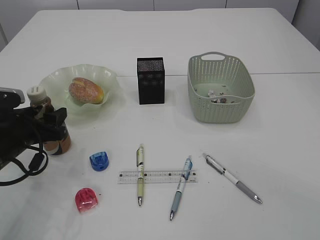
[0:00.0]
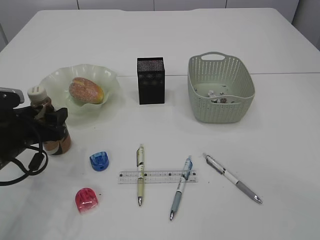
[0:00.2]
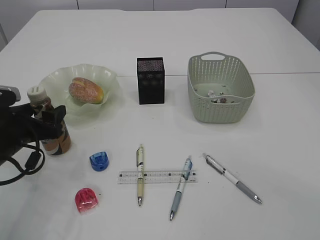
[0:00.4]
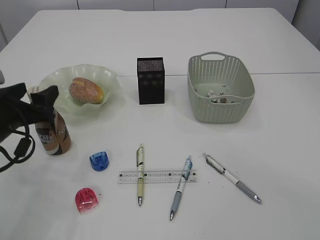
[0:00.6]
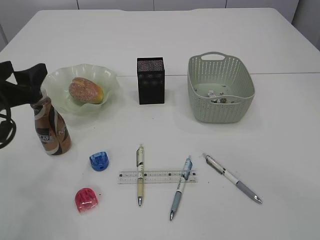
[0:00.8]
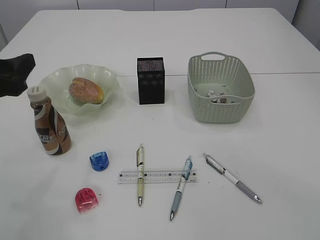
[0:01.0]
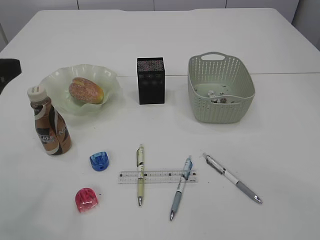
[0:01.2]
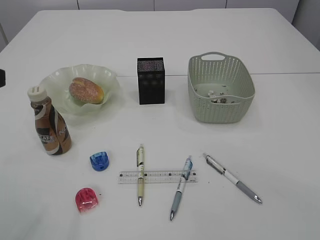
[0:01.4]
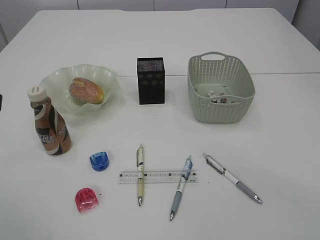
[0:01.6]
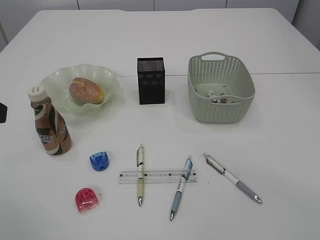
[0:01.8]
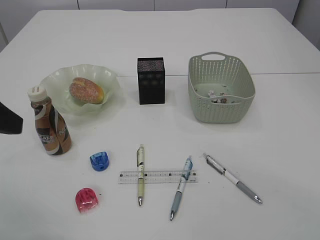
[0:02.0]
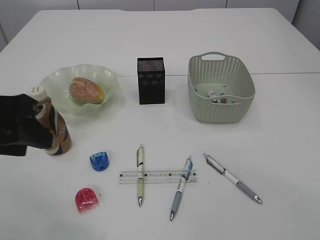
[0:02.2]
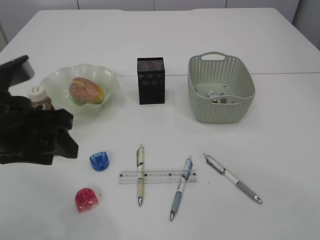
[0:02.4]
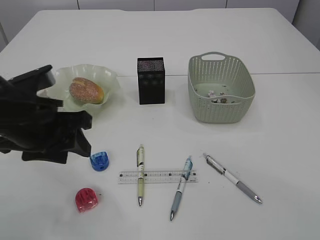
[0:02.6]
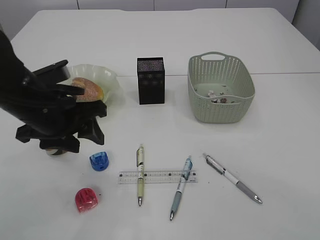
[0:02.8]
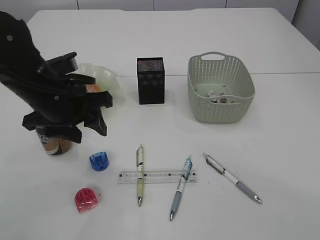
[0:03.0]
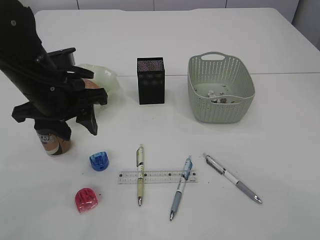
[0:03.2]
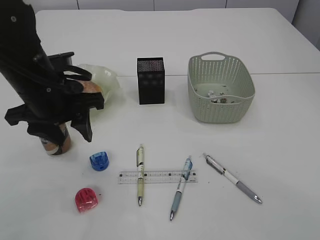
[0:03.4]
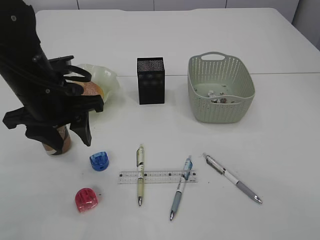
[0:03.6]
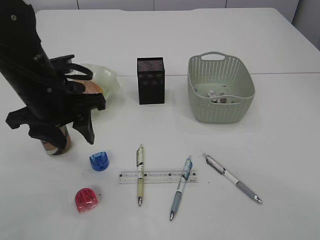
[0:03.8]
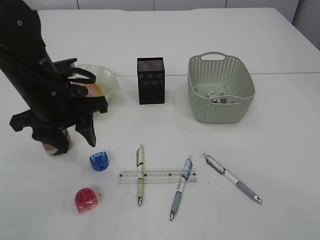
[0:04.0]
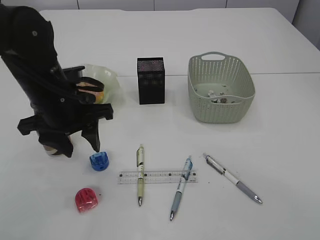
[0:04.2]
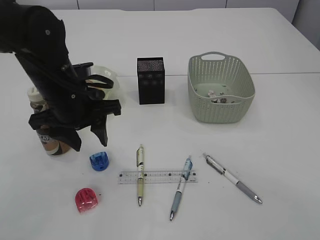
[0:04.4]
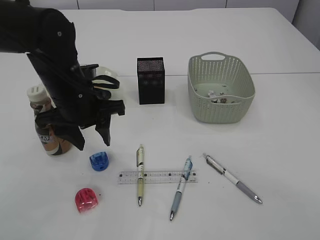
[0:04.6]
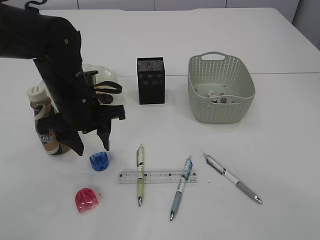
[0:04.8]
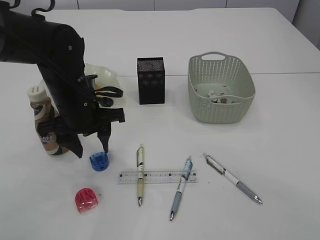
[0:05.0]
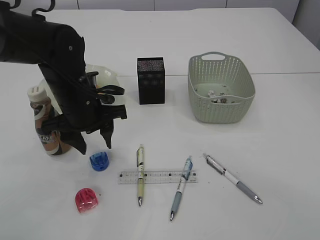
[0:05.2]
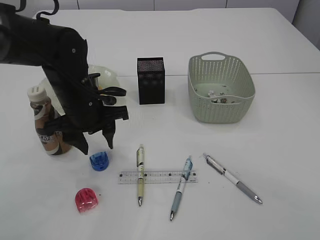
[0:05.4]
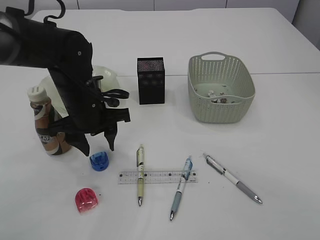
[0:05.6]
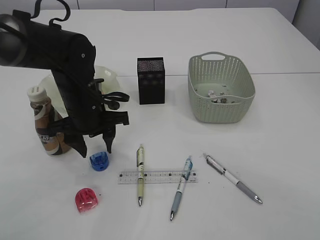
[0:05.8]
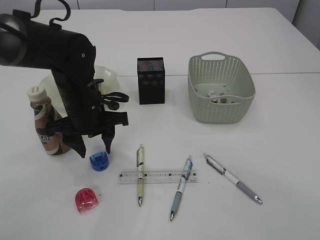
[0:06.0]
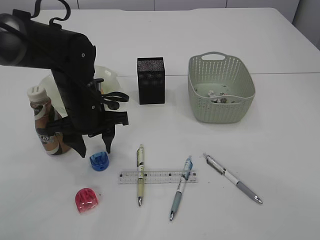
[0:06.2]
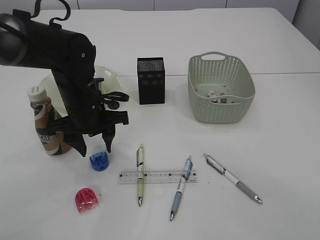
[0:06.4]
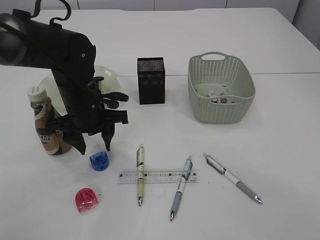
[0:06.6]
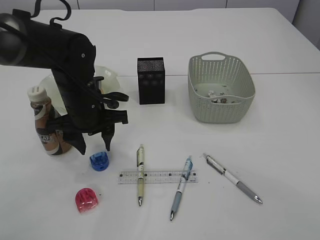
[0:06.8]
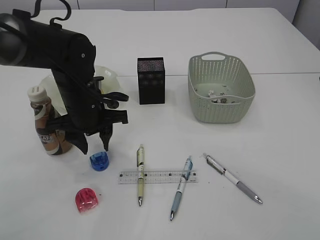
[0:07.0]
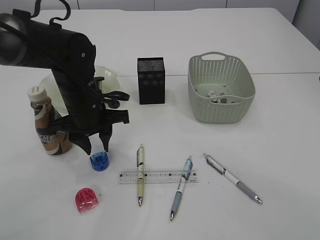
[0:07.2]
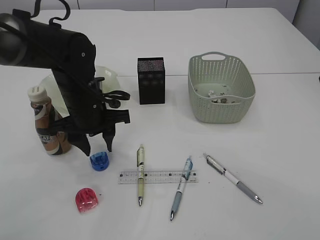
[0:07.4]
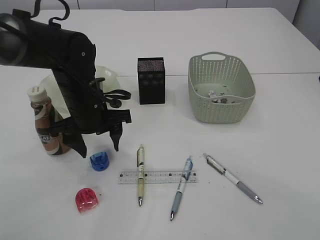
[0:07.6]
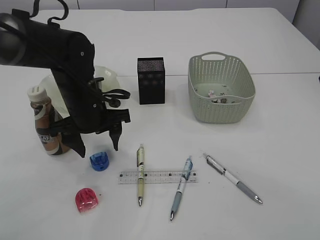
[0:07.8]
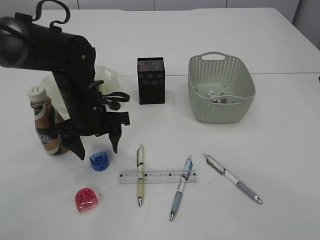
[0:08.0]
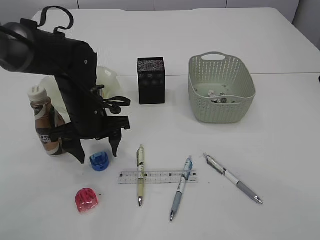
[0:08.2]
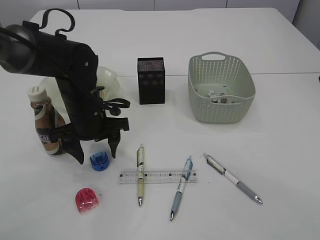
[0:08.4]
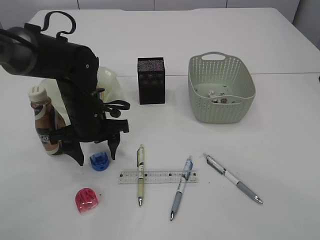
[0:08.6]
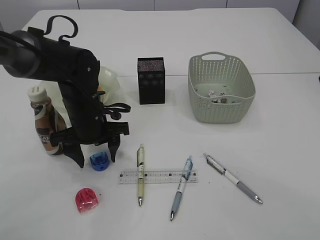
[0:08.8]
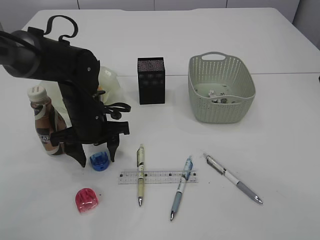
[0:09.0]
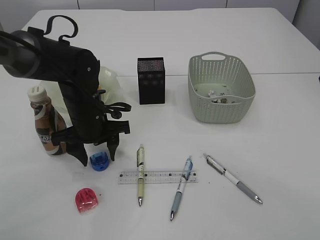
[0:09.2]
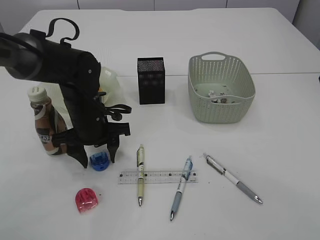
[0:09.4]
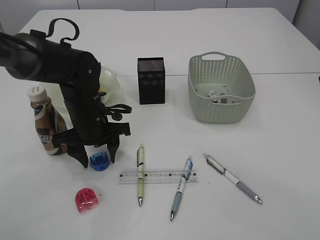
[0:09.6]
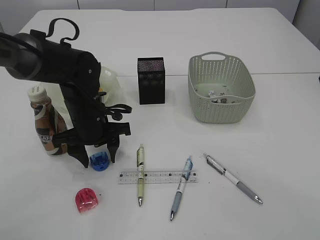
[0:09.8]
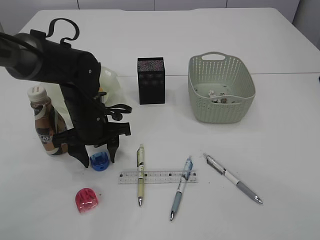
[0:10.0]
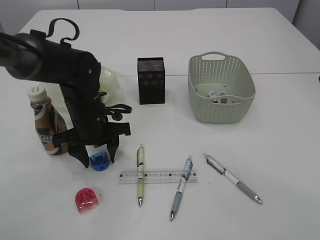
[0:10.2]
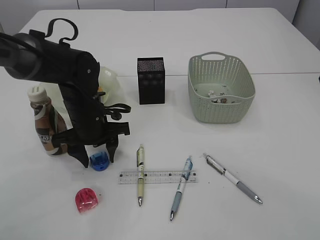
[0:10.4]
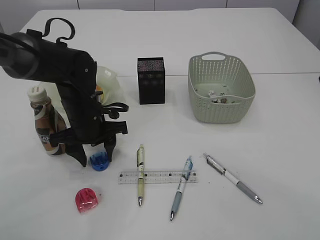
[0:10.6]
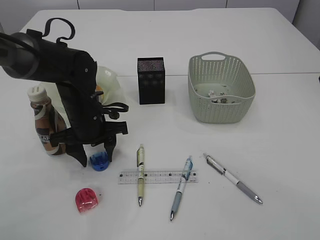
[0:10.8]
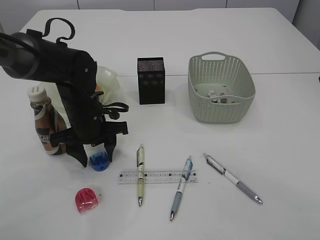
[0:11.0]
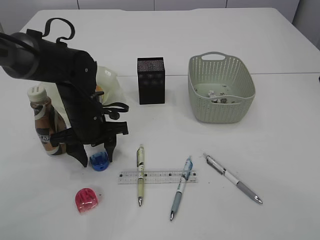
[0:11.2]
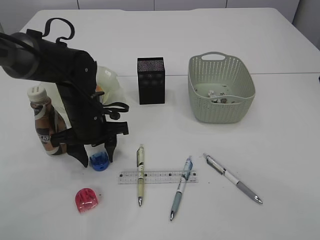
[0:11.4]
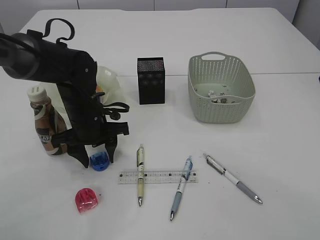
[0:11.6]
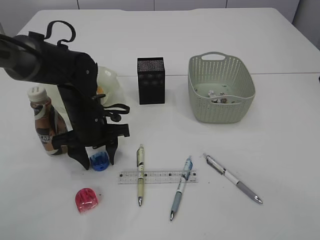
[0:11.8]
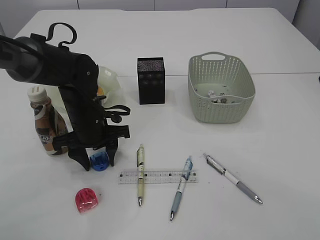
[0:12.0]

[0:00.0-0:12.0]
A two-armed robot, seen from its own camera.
0:00.0 to 0:01.6: The left gripper travels upward and backward by roughly 25 cm.
0:01.6 to 0:03.0: The left gripper is displaced forward, to the right and downward by some 20 cm.
0:03.0 to 0:04.4: The grippers stay close to where they were, moving slightly.
0:04.4 to 0:06.0: The left gripper ends up some 5 cm from where it was.
0:06.0 to 0:07.6: The left gripper closes and opens again.
0:07.6 to 0:09.0: The grippers make only small movements.
0:09.0 to 0:12.0: Both grippers stay put.

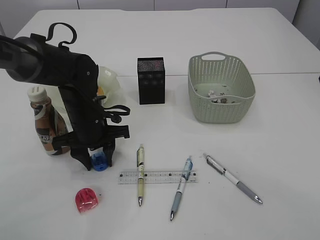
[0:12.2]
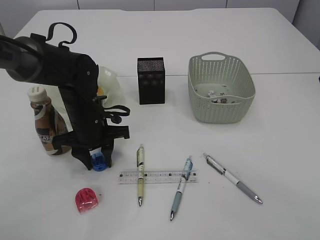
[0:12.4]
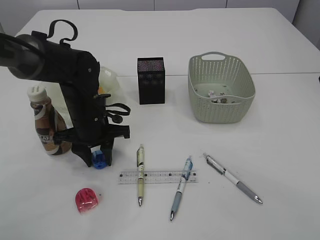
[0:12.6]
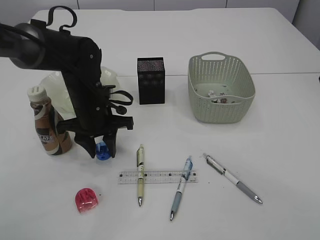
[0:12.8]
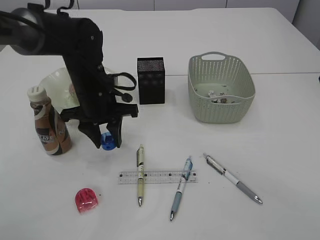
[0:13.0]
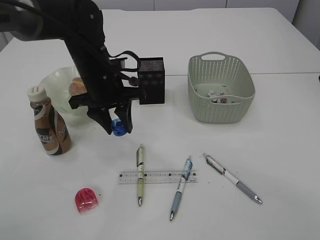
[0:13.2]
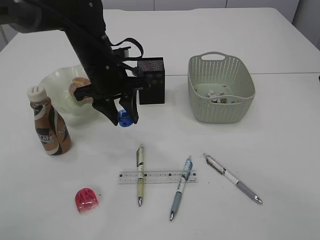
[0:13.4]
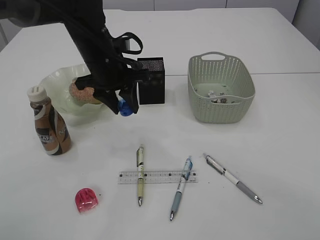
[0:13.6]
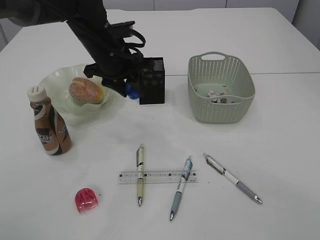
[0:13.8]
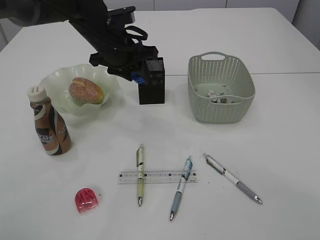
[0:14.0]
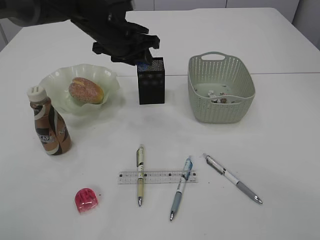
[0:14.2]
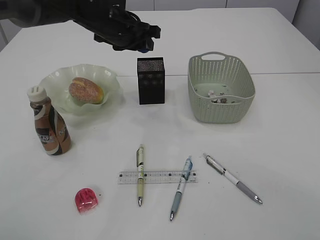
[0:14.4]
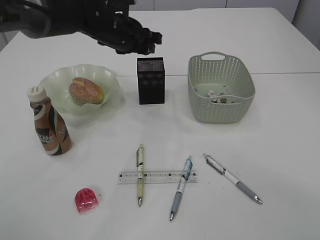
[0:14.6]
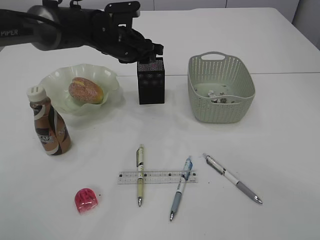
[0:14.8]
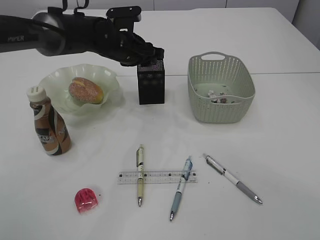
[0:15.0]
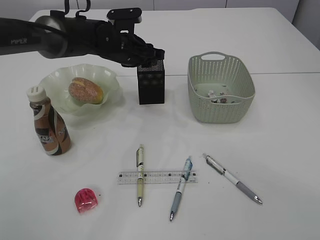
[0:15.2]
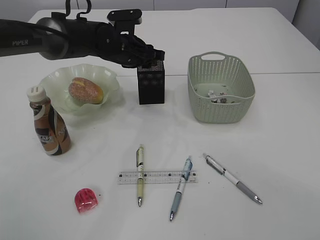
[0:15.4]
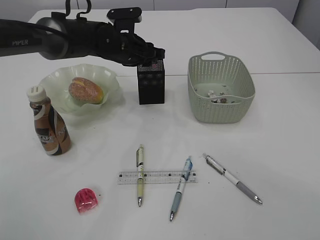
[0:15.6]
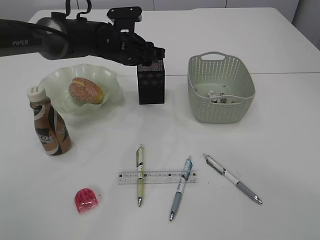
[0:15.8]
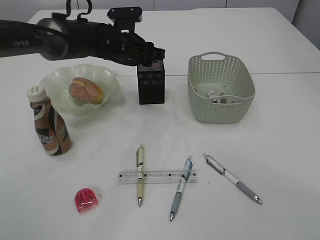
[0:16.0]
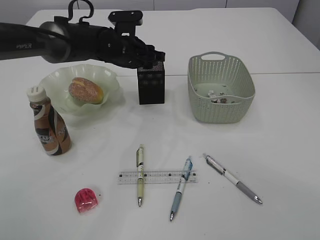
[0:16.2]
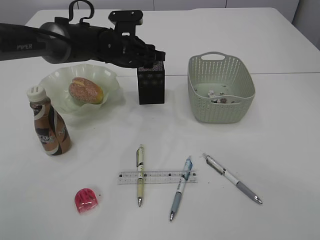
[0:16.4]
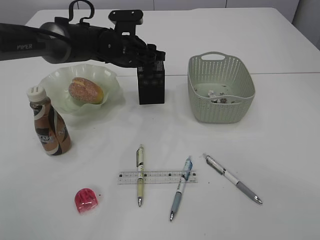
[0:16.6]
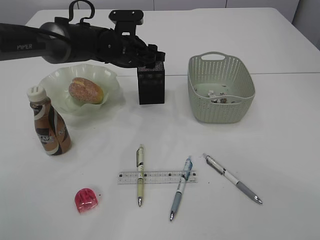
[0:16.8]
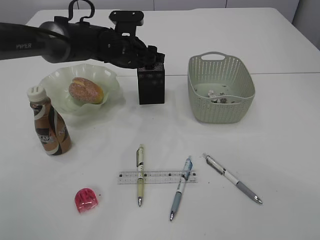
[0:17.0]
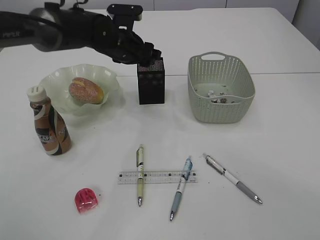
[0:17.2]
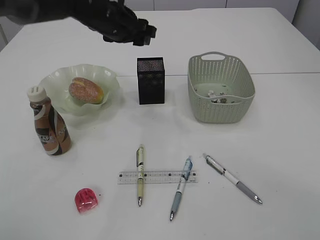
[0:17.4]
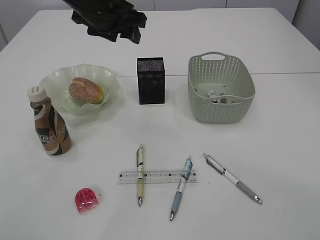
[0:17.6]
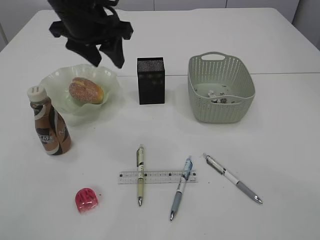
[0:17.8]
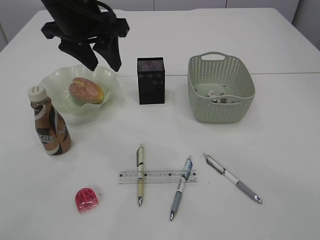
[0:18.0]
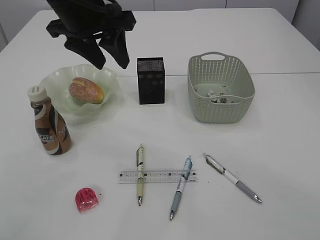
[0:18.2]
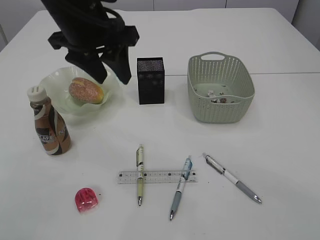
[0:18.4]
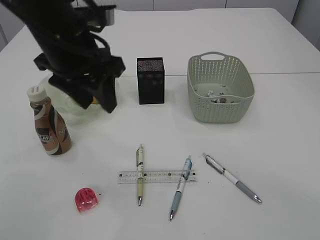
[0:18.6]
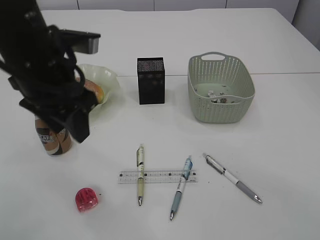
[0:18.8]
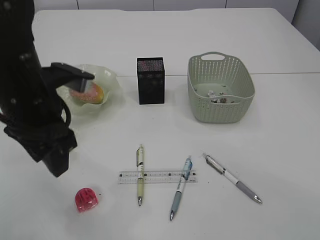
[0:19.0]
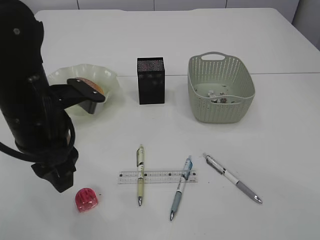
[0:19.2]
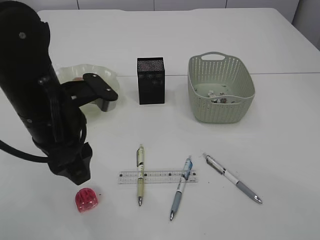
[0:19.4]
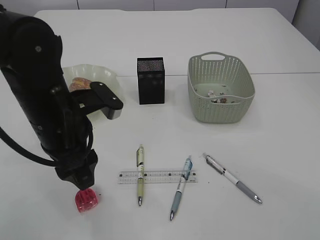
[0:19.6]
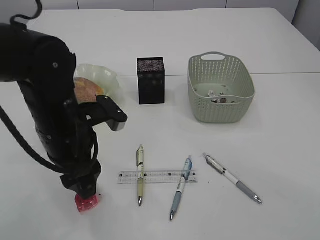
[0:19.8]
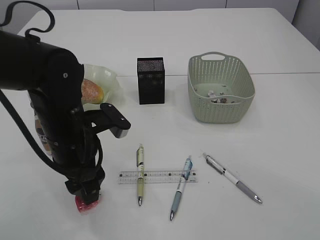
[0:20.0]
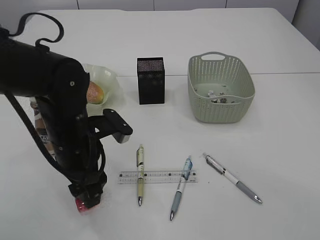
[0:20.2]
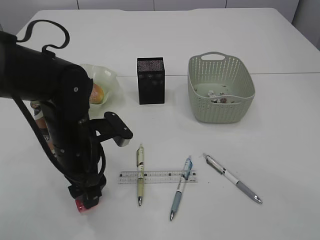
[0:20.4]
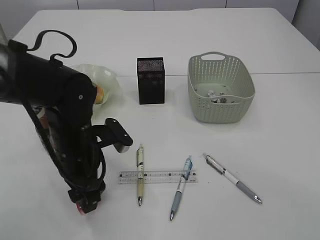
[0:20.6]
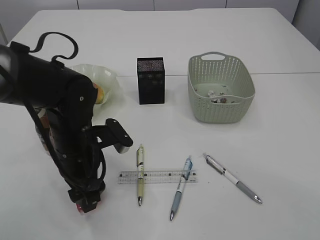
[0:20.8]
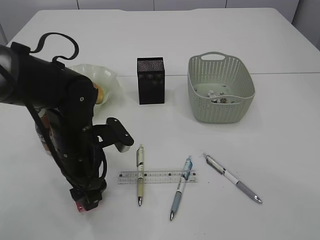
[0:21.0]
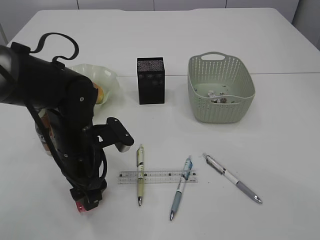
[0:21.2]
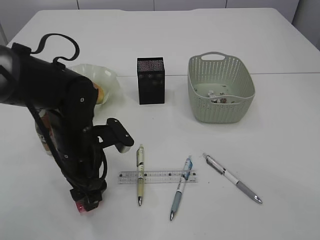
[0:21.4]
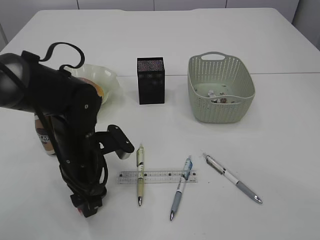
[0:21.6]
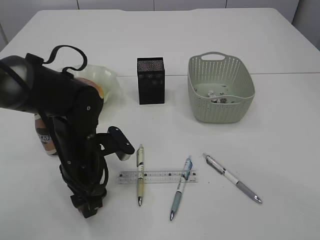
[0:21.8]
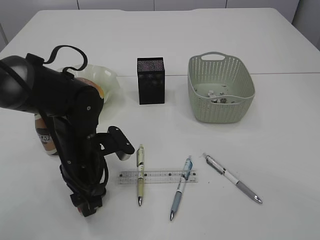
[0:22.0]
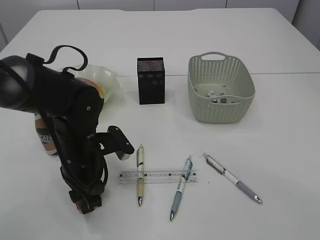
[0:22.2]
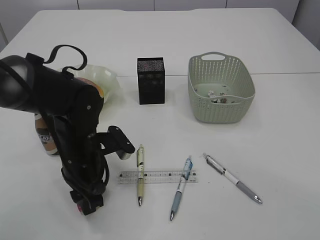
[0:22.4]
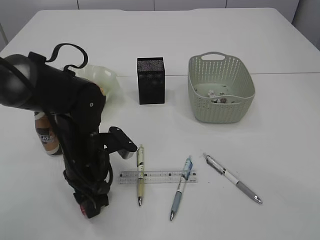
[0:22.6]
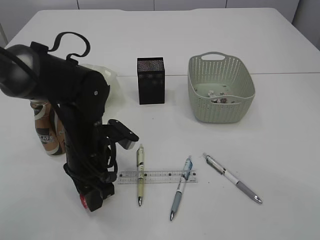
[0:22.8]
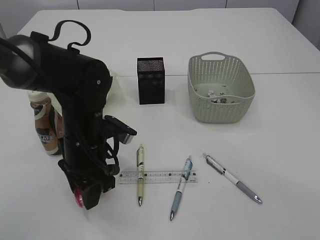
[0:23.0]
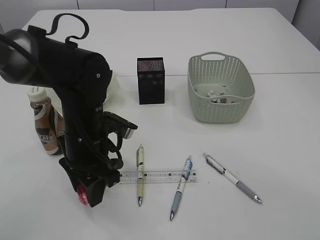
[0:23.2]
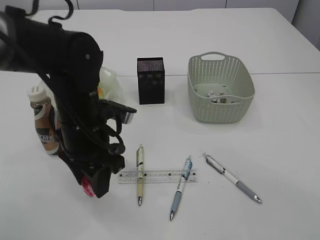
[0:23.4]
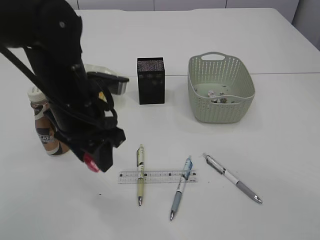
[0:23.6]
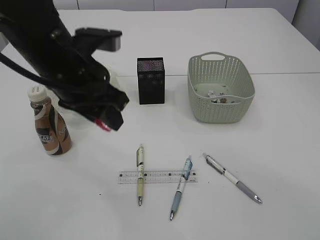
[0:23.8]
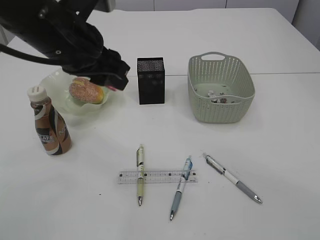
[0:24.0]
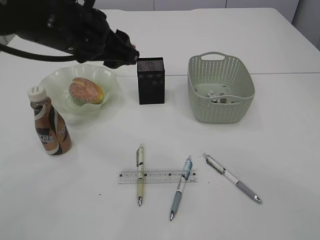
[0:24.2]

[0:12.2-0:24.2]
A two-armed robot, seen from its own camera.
Step, 0:13.2 to 0:17.4: Place the blue pencil sharpener into the pen holder.
Step, 0:17.6 to 0:23.6: Pick up the red pencil sharpener.
0:12.2 to 0:13.8: The left gripper moves upward and forward, roughly 10 cm.
0:13.8 to 0:15.2: The left gripper goes roughly 5 cm forward.
0:15.2 to 0:16.6: Both grippers stay put.
0:16.6 to 0:18.2: The left gripper is displaced upward and backward by some 20 cm.
0:18.2 to 0:19.8: The left gripper heads downward and backward, covering about 15 cm.
0:19.8 to 0:21.2: The left gripper is displaced downward by about 5 cm.
0:21.2 to 0:22.6: The left gripper closes.
0:22.6 to 0:24.2: The left gripper goes some 20 cm upward.
